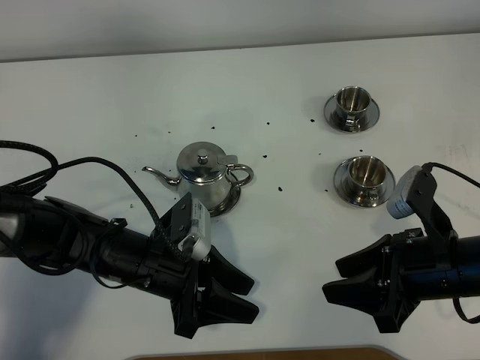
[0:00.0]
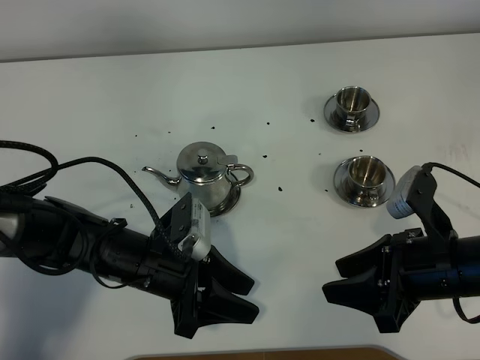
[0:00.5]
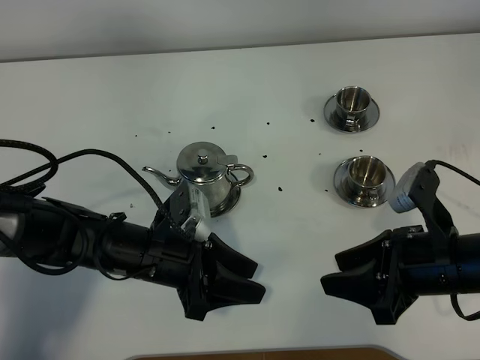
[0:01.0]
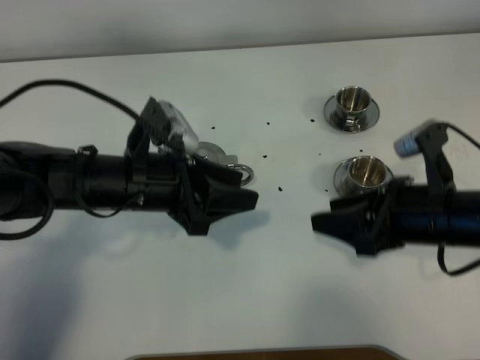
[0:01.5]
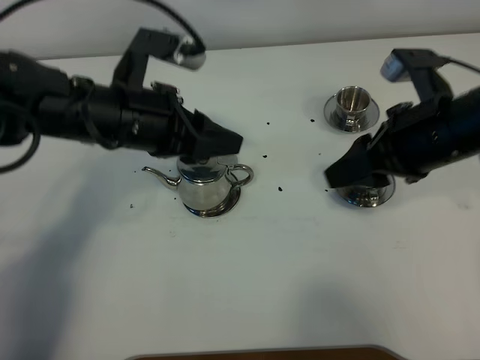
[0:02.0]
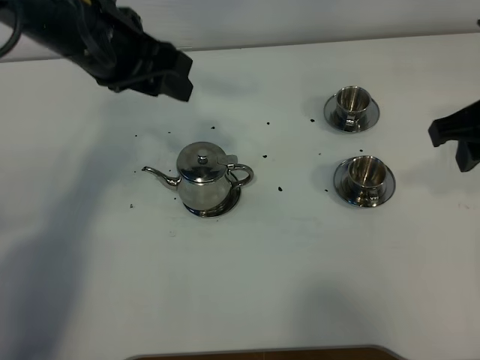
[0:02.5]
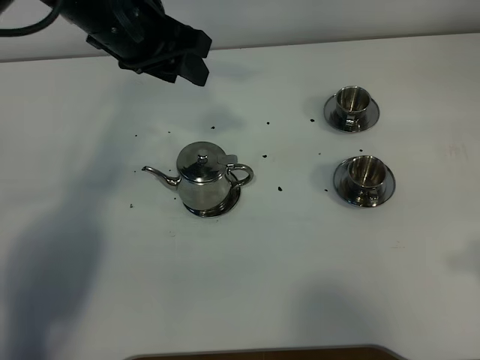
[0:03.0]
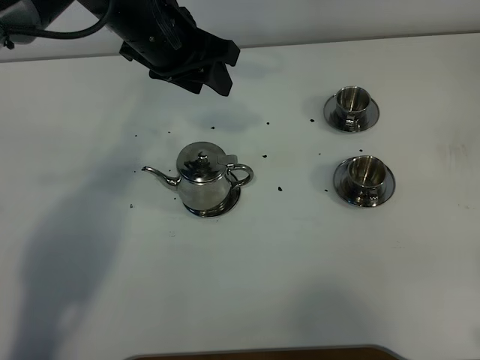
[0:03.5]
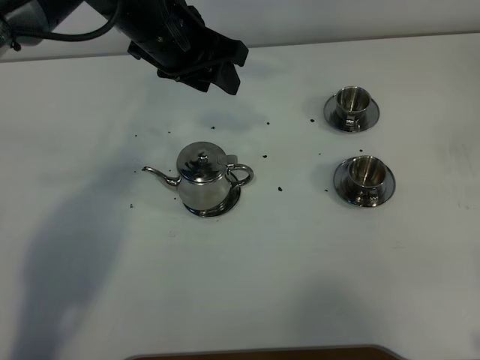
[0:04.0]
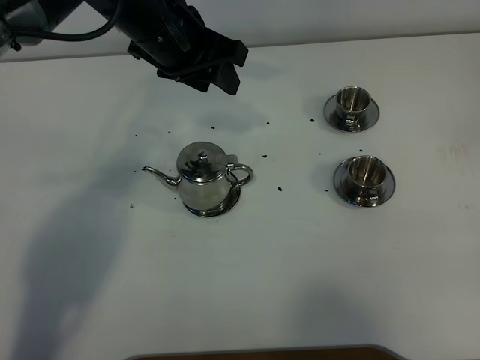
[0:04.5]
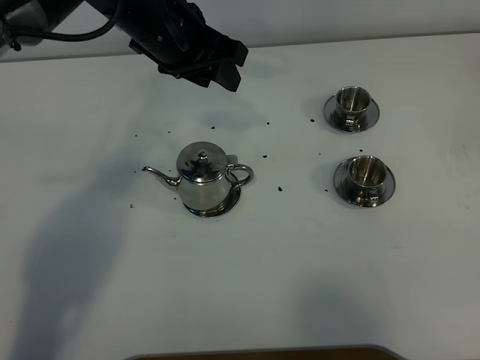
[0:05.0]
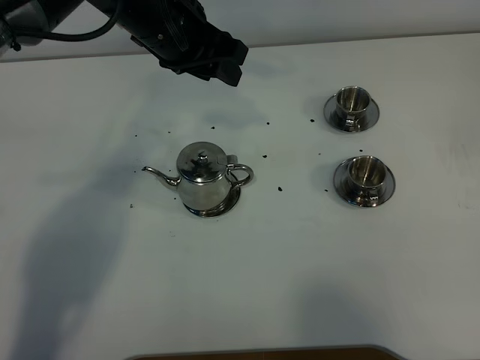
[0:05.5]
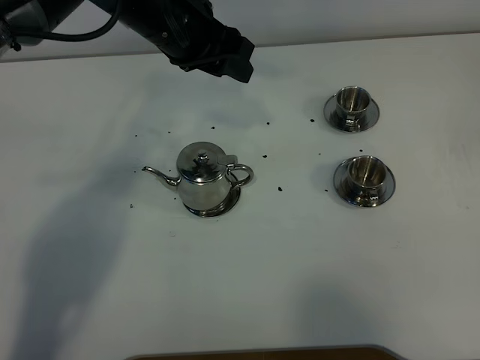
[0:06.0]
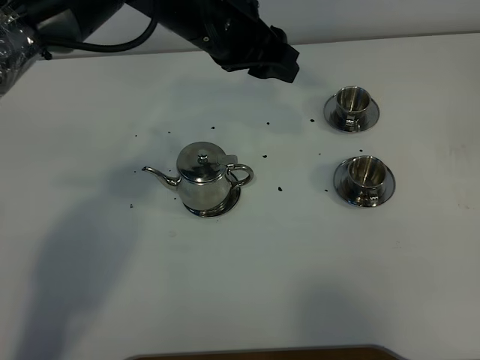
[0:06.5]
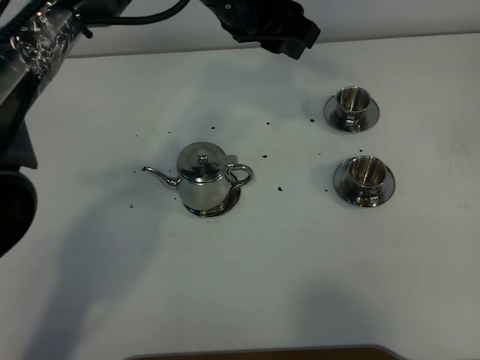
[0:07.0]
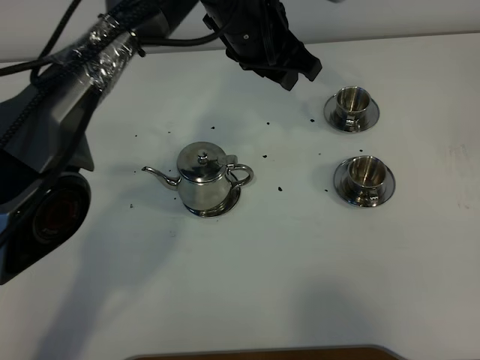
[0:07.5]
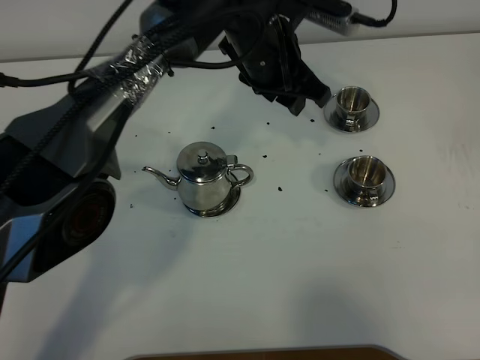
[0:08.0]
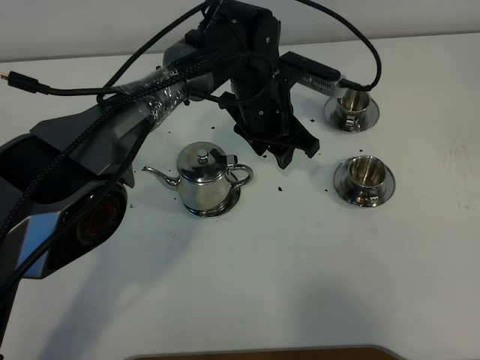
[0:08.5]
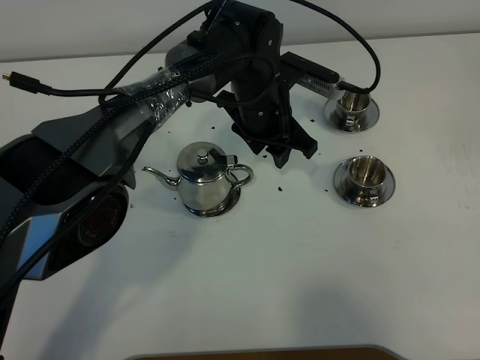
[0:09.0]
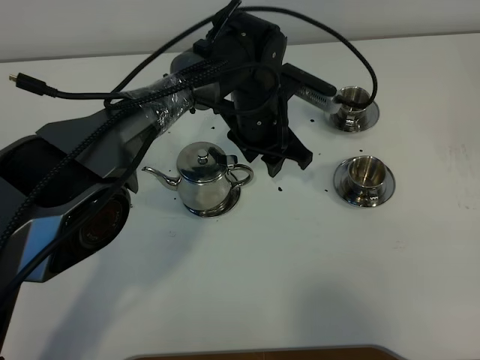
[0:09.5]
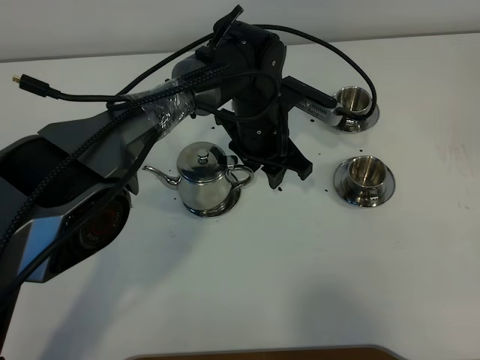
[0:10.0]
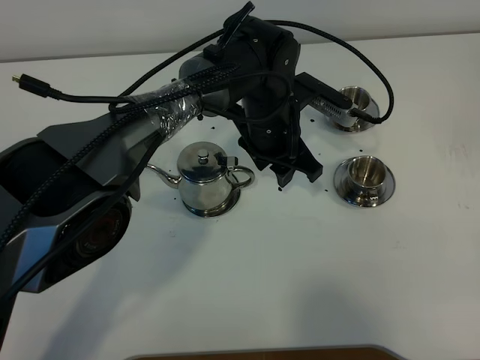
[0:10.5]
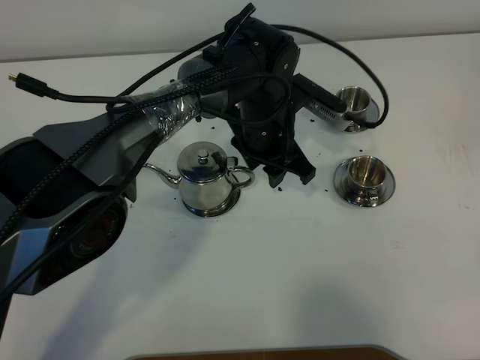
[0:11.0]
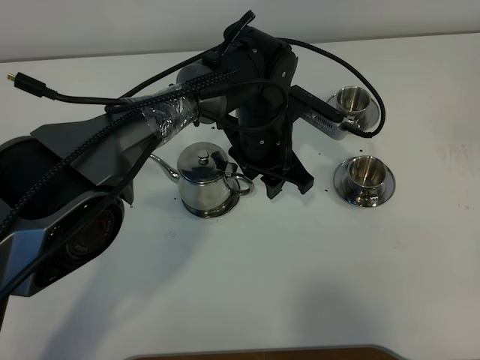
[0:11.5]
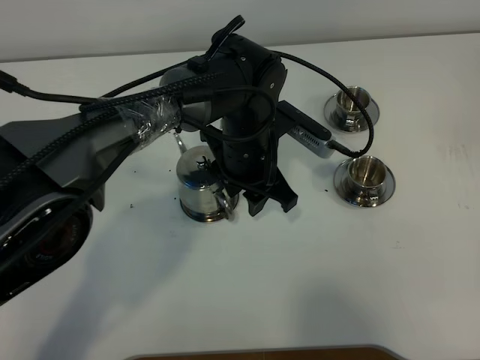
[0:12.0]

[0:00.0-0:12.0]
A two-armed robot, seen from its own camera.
Task of the whole recording: grasp the stainless steel teapot and pour the tea into the two stainless steel teacups one by one, put the stainless steel teapot back in its original place.
0:00.0 to 0:02.0: Both grippers travel together upward and forward, approximately 15 cm.
0:02.0 to 0:04.0: The left gripper travels forward by some 10 cm; the right gripper heads backward and to the right, covering about 25 cm.
0:04.0 to 0:06.0: The right gripper travels backward by some 5 cm.
0:06.0 to 0:08.0: The left gripper is displaced to the right and downward by roughly 10 cm.
0:08.0 to 0:10.0: The left gripper goes about 10 cm downward.
0:10.0 to 0:12.0: The left gripper changes place by some 5 cm.

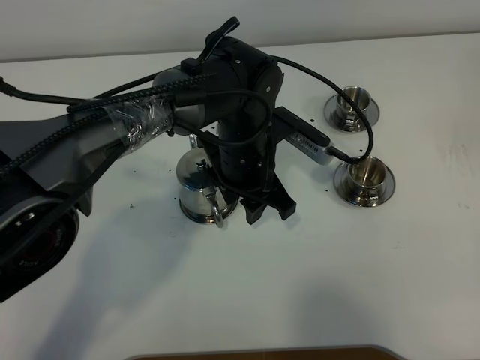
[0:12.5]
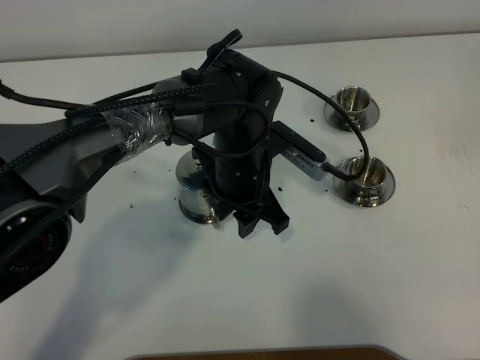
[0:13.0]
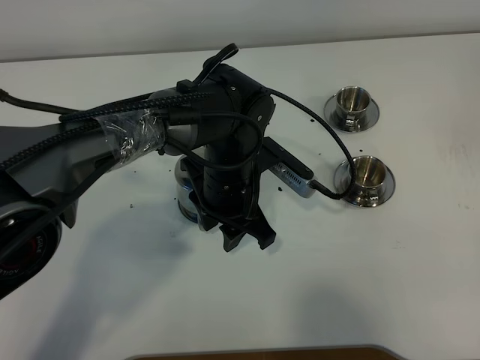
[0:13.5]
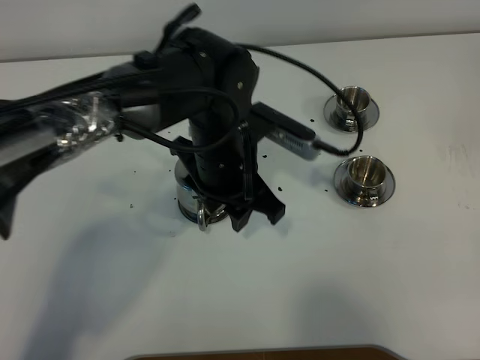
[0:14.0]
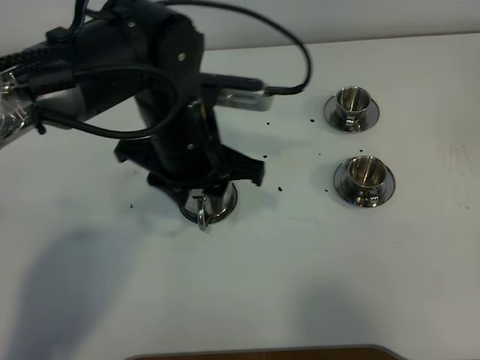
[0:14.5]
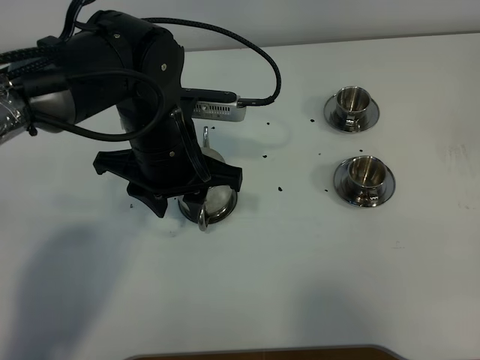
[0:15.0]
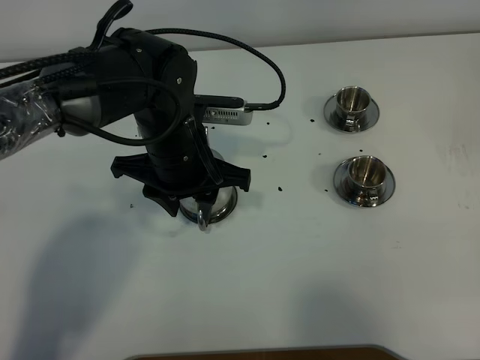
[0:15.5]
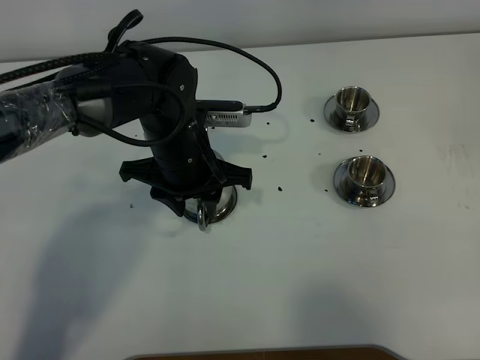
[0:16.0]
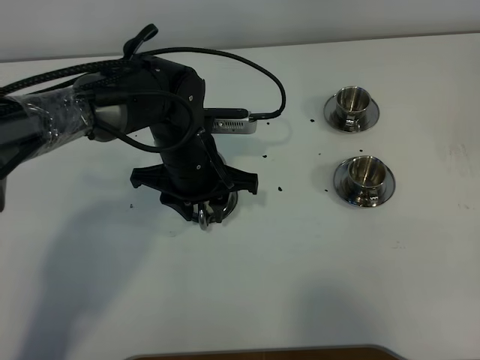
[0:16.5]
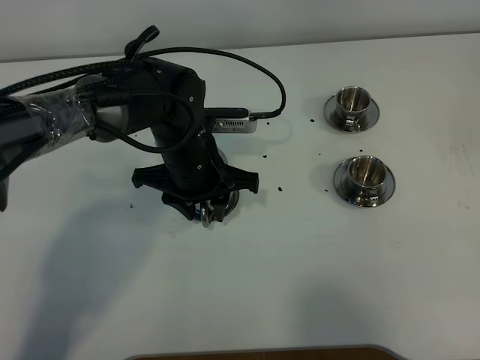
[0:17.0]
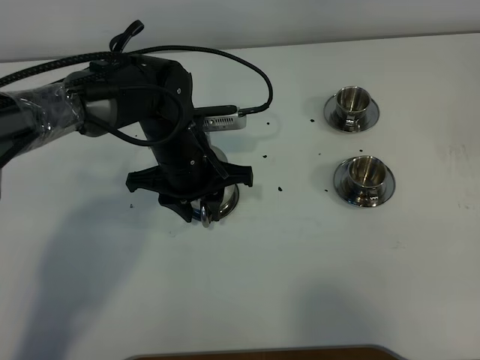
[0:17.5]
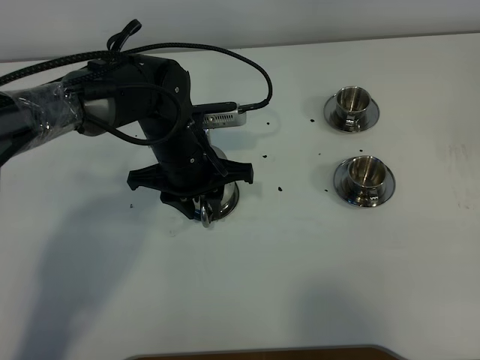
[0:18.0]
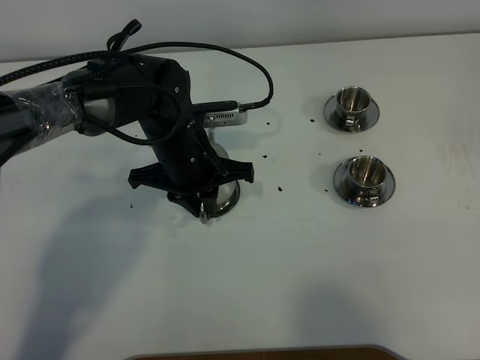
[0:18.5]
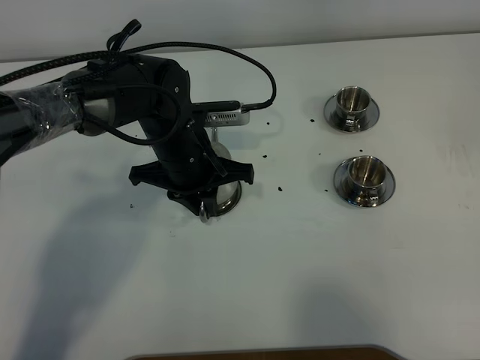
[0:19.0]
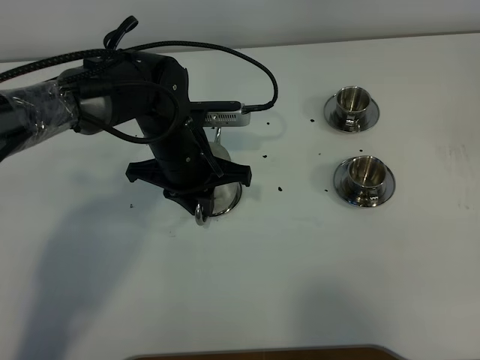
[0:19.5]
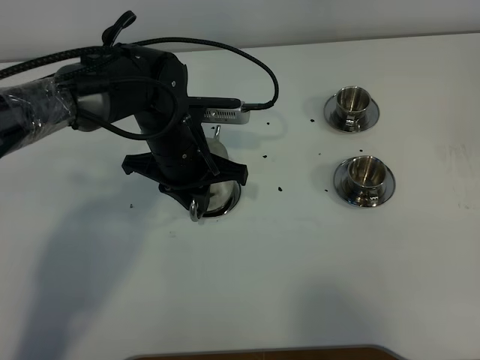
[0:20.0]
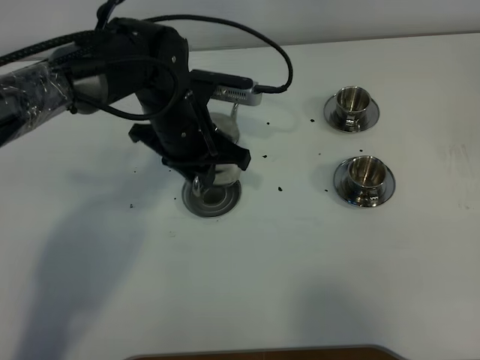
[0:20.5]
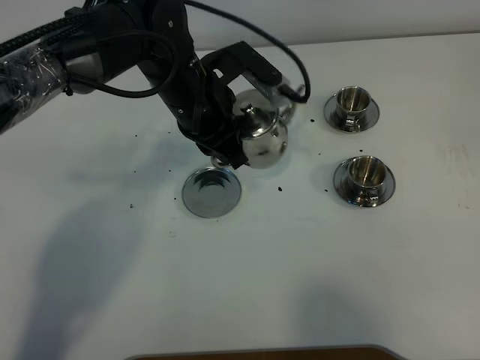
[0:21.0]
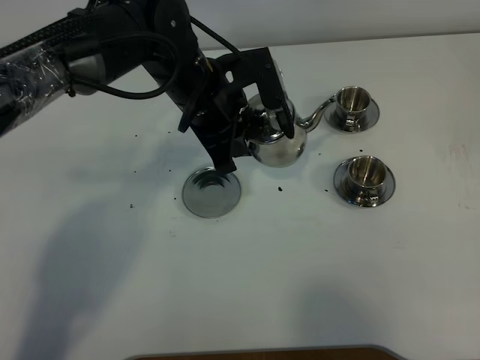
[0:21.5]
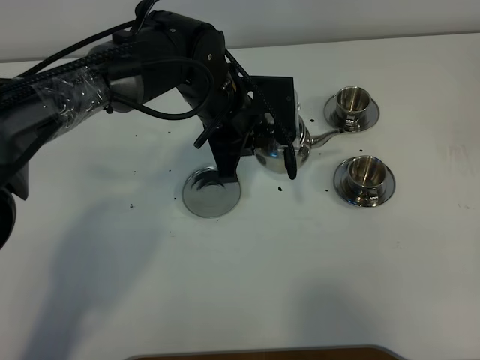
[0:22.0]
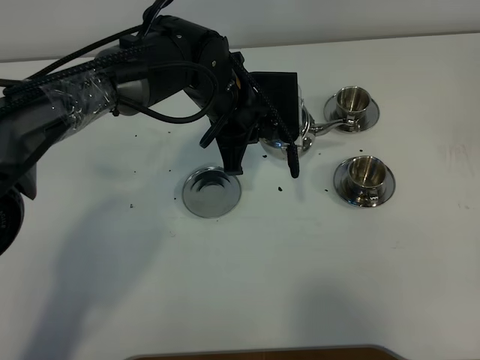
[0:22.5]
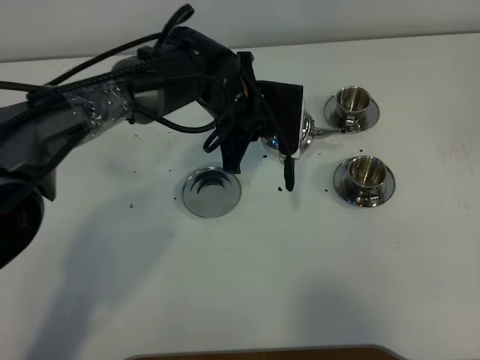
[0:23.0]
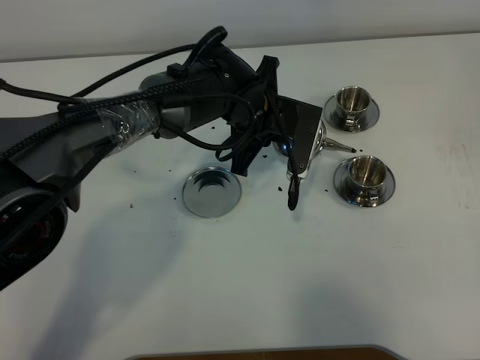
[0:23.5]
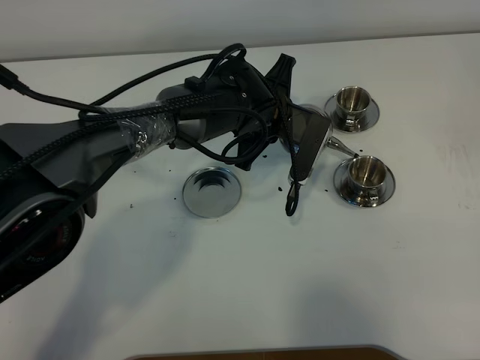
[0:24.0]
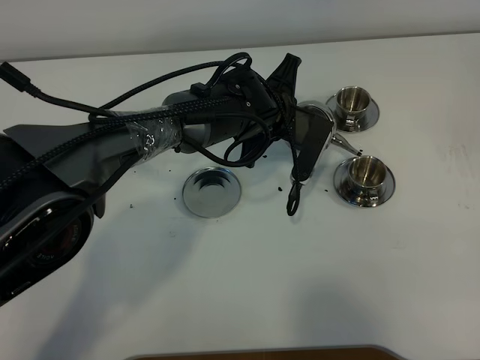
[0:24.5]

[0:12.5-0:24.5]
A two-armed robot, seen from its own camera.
Task of the whole recording: grasp the stainless steel teapot and pour the tea into the two stainless steel teacups one by one, put the stainless steel teapot back in its original place.
Step, 0:12.5 to 0:20.0: Pick up the teapot with the left gripper.
0:12.5 to 0:14.5: The left gripper heads upward and to the left, covering about 10 cm.
0:14.5 to 0:16.5: The left gripper goes approximately 10 cm downward.
0:16.5 to 0:18.5: The left gripper closes.
0:20.5 to 0:22.5: The left gripper travels to the right by some 5 cm.
0:22.5 to 0:24.5: The left gripper goes some 5 cm to the right.

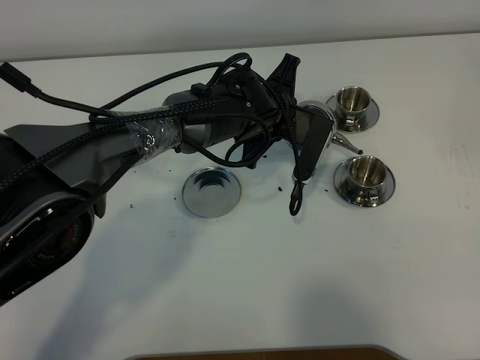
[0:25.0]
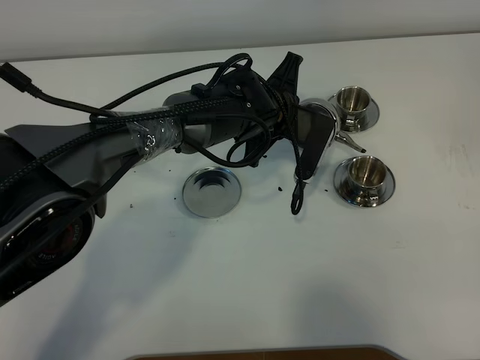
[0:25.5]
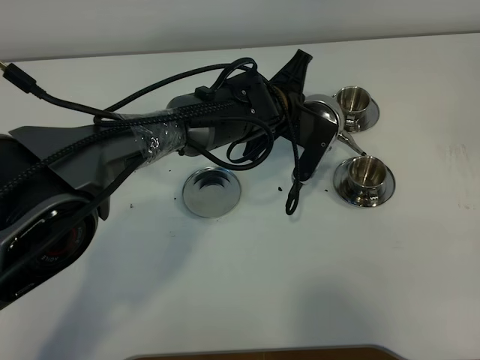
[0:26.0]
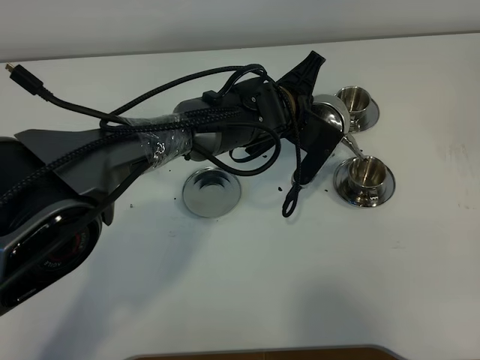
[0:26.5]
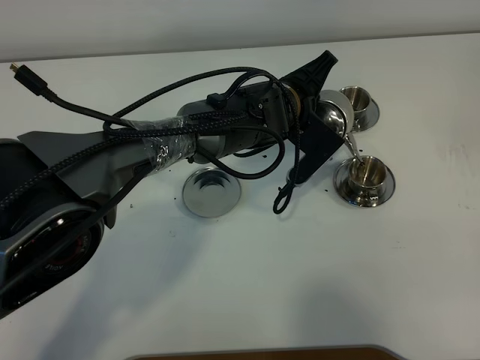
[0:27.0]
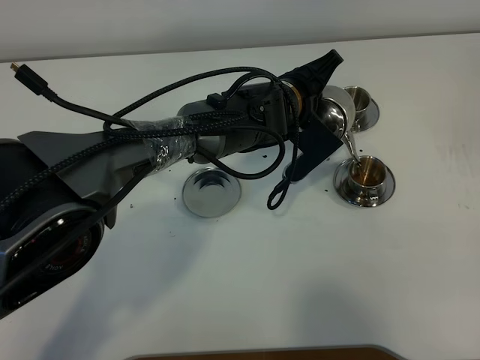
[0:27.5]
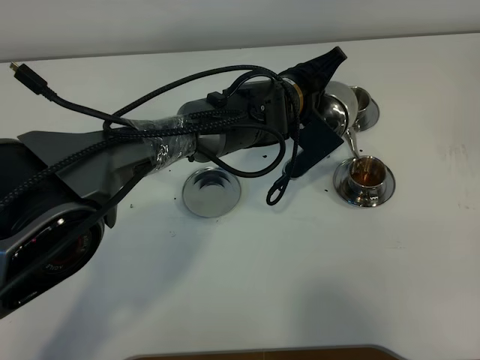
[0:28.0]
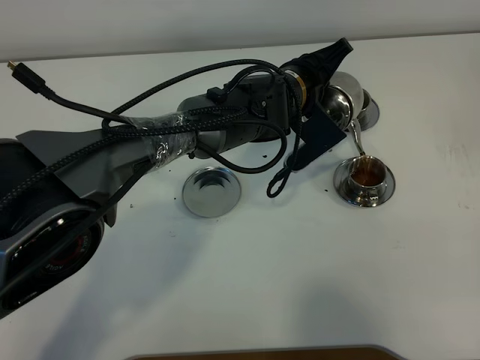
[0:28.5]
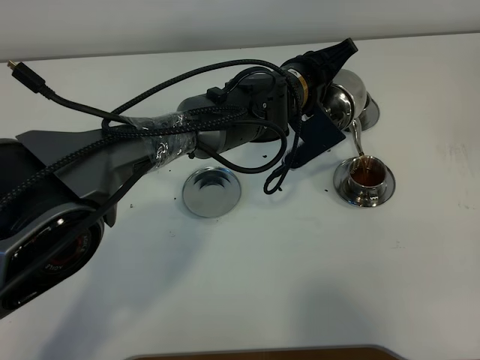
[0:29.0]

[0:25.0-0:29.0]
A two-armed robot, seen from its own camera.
Task of the whole recording: grasp the stainless steel teapot and pour the tea into the two stainless steel teacups one by one, put the stainless steel teapot back in its original place.
0:27.0 to 0:29.0: There are only small adjustments of the grippers.
